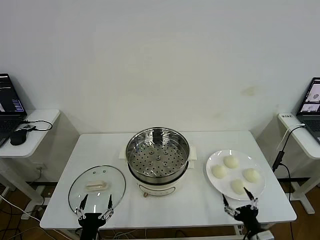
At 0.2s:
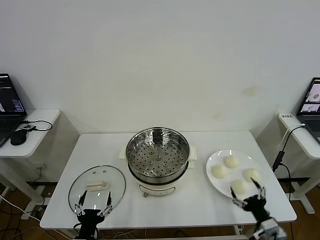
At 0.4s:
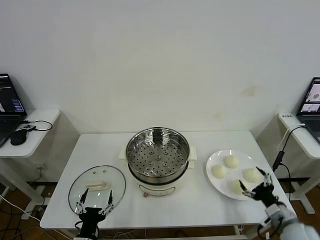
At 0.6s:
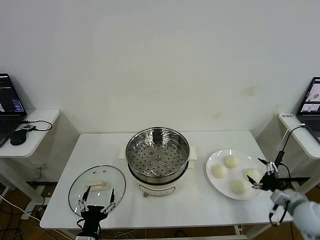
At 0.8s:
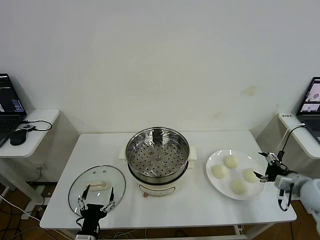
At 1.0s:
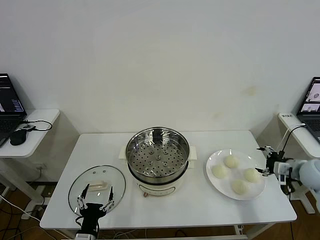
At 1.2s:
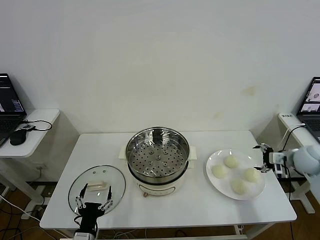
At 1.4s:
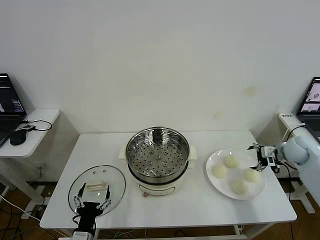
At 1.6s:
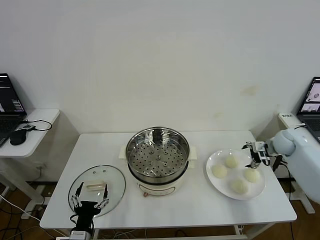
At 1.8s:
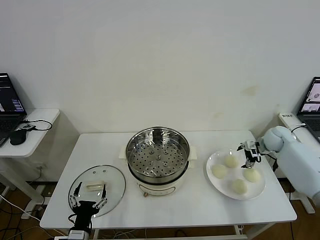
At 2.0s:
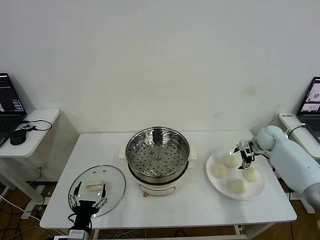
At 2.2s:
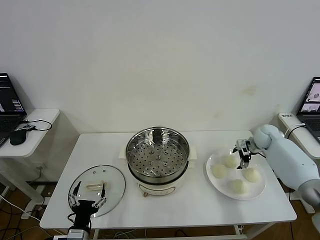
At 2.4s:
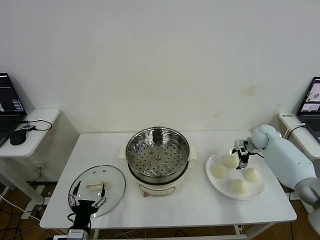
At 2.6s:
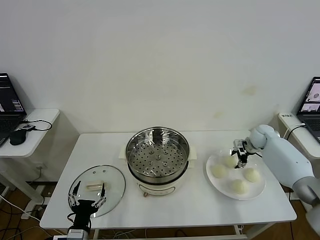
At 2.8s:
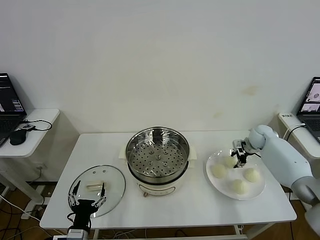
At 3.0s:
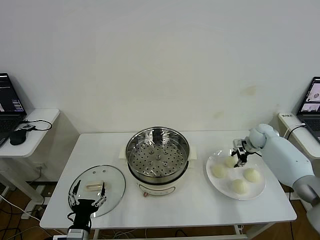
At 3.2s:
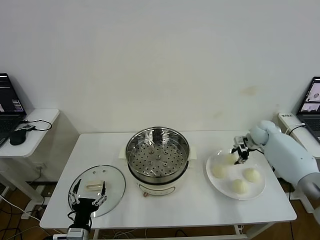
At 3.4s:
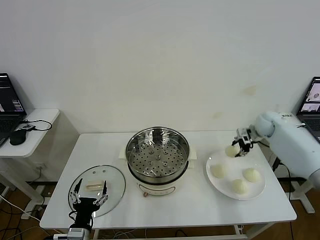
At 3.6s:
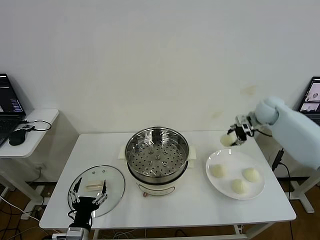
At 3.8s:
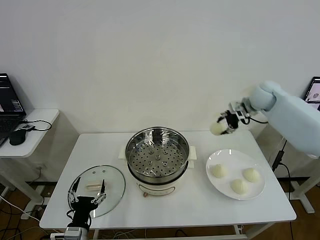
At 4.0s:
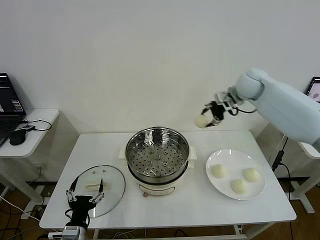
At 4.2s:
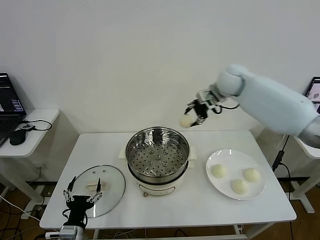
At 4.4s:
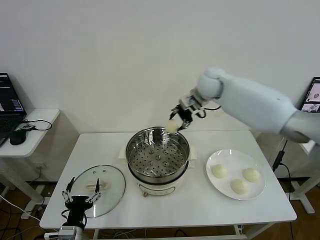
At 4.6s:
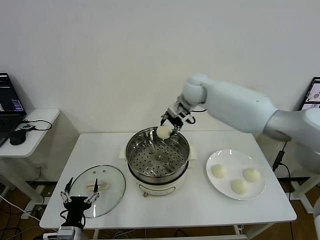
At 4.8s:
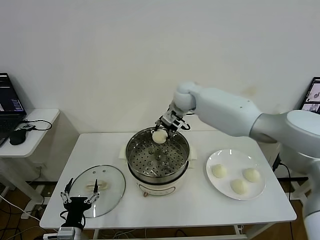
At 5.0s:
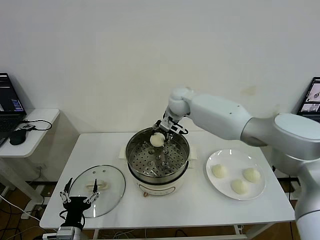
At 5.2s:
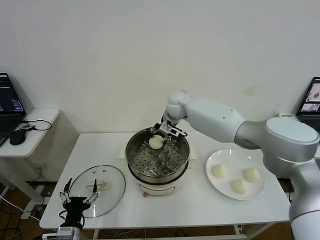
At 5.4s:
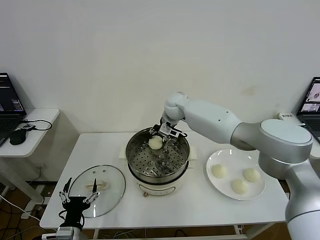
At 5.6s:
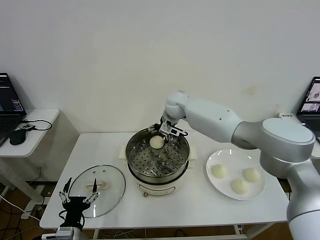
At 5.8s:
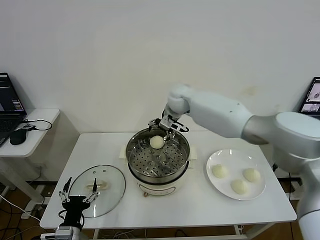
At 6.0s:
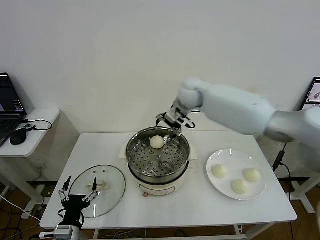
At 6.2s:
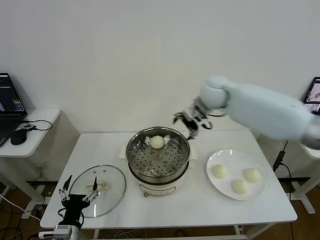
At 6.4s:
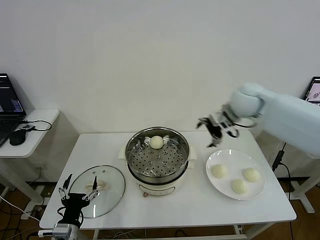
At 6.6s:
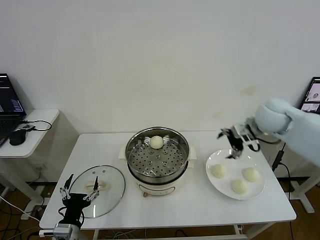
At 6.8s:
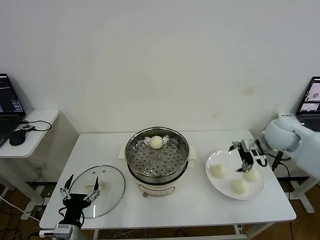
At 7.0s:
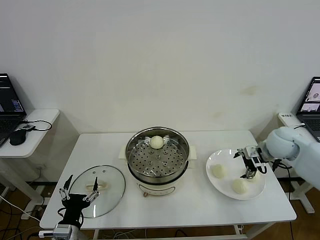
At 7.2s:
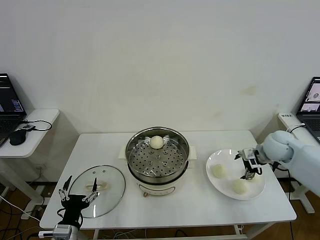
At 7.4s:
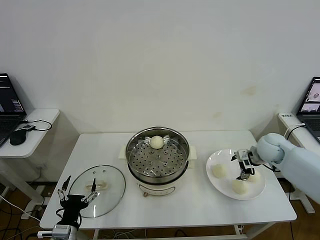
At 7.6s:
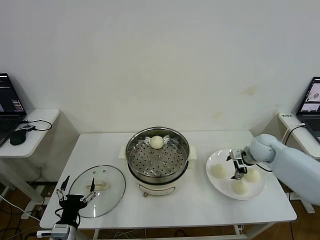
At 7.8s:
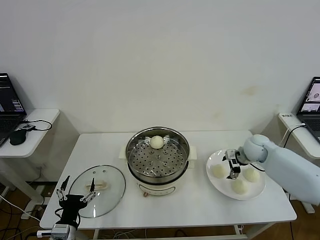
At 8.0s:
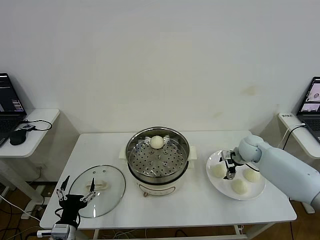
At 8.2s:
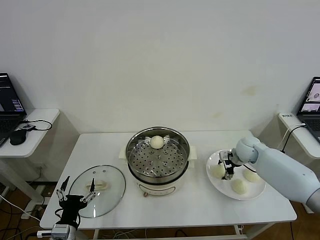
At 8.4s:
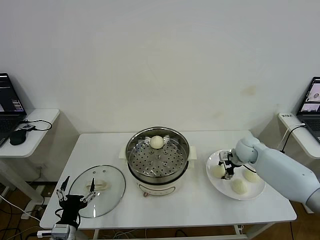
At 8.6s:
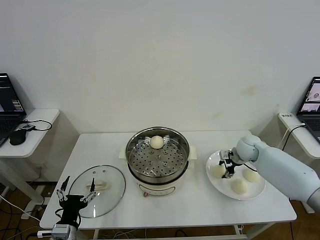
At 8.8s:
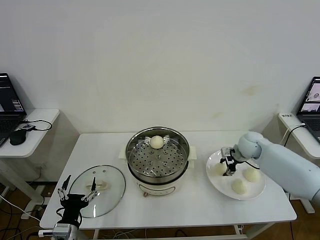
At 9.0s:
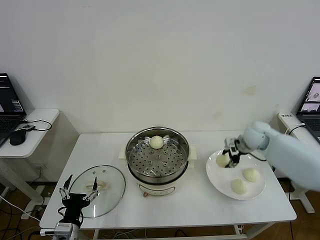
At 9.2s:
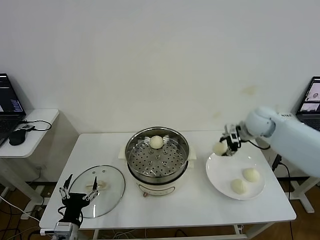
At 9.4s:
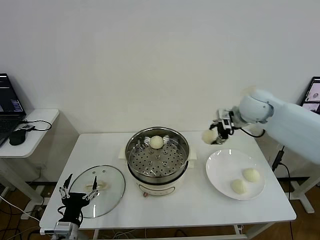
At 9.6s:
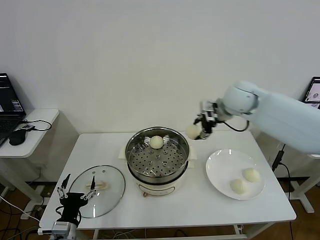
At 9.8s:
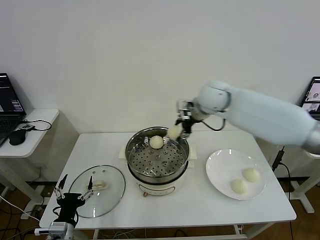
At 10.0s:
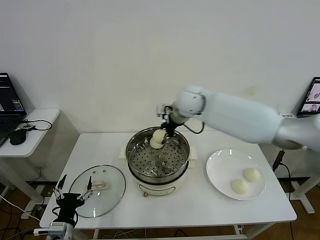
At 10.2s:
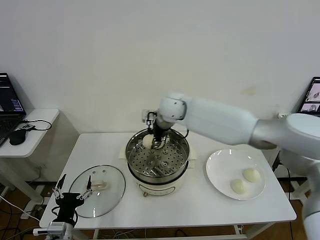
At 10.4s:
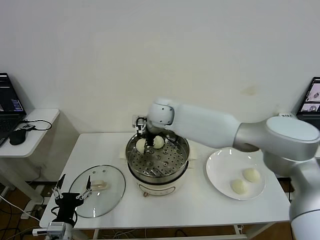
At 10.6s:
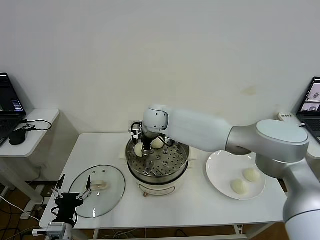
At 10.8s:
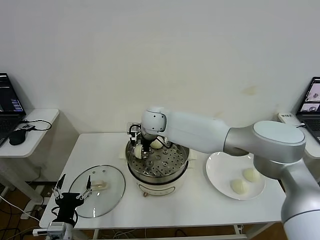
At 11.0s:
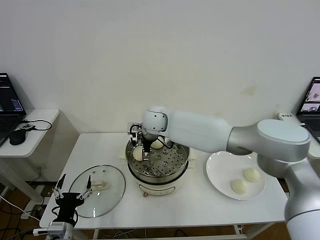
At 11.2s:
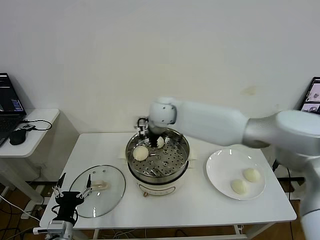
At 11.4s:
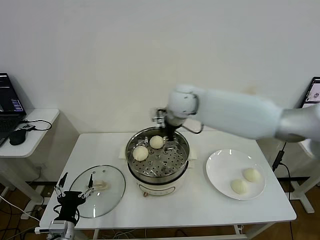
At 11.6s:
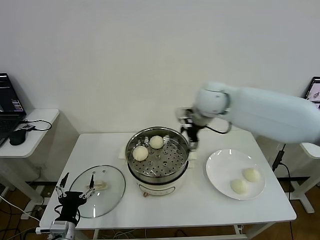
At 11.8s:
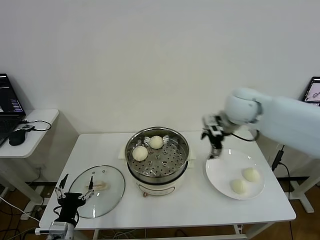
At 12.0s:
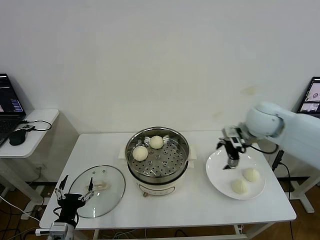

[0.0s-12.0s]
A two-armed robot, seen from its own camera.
Step, 0.0s to 2.8s: Grasp the baozi in the plate with right gripper.
Step, 3.0s to 5.4s: Place the baozi on the steamer with right gripper.
Step, 5.8s to 8.4s: Grasp the baozi in the plate with right gripper.
Step, 8.6s to 11.0s: Place the baozi on the steamer with right gripper.
1.6s to 3.0s: The right gripper goes approximately 5 cm forward, and closes its fingers.
3.0s to 4.4s: The right gripper heads to the left and upward, covering approximately 35 cm.
4.4s to 6.0s: The right gripper goes downward and returns, approximately 10 cm each way, and opens up.
6.0s to 7.6s: The right gripper heads to the right and downward, covering about 30 cm.
7.6s to 9.0s: The right gripper travels upward by roughly 5 cm, and closes.
9.0s to 10.4s: The right gripper is displaced to the left by approximately 35 cm.
10.4s to 12.0s: The right gripper heads to the right, covering approximately 30 cm, and opens its fingers.

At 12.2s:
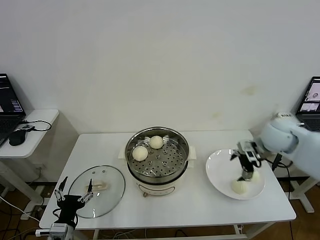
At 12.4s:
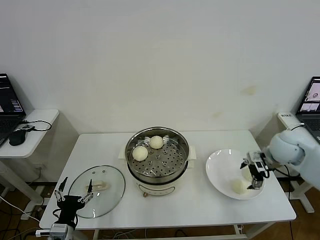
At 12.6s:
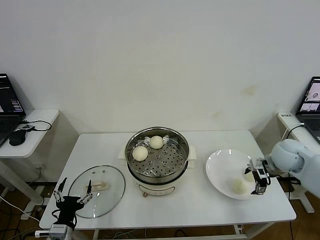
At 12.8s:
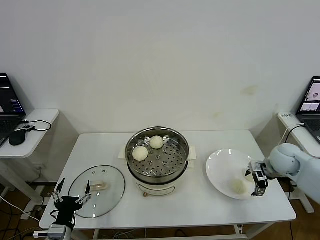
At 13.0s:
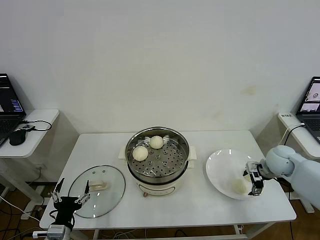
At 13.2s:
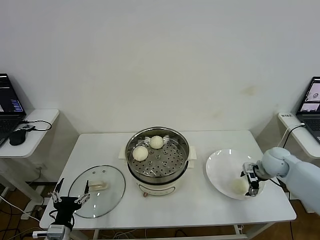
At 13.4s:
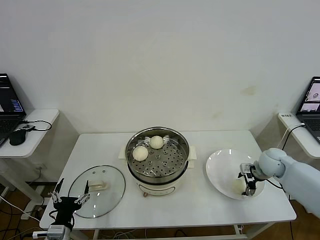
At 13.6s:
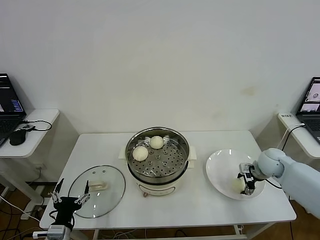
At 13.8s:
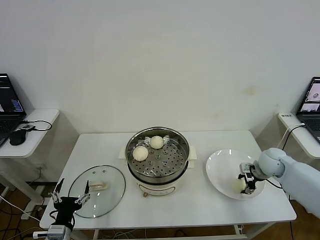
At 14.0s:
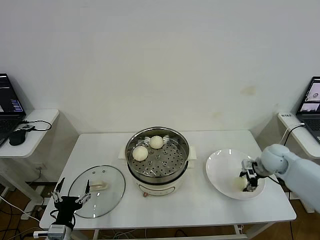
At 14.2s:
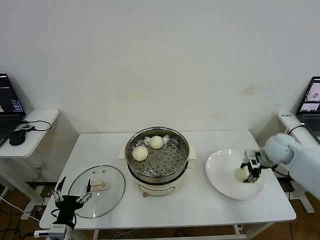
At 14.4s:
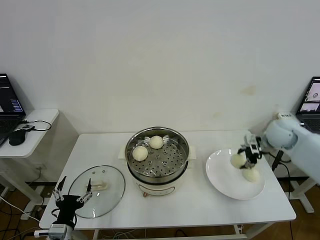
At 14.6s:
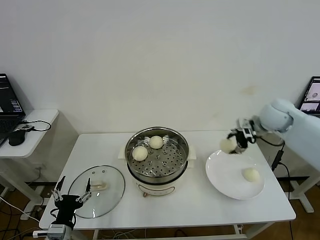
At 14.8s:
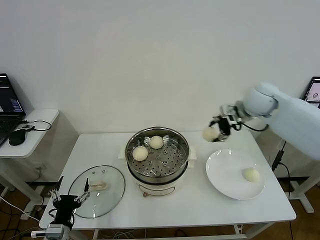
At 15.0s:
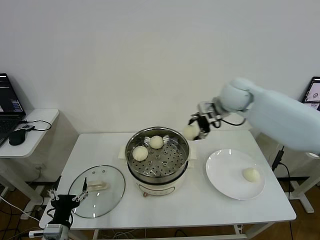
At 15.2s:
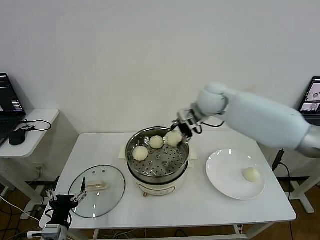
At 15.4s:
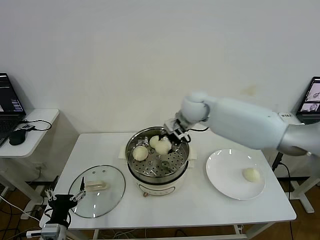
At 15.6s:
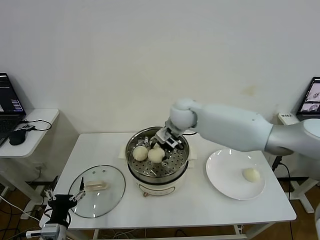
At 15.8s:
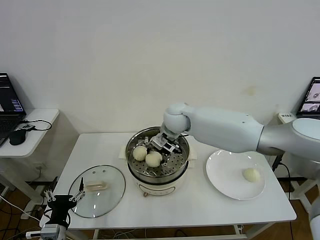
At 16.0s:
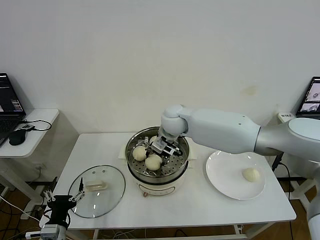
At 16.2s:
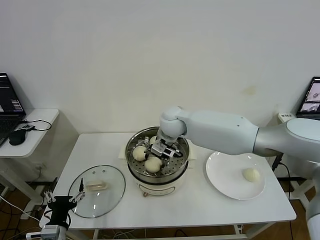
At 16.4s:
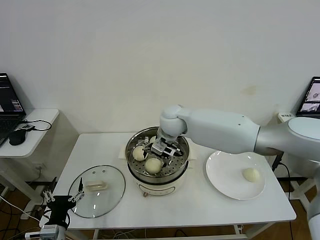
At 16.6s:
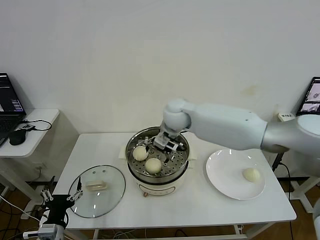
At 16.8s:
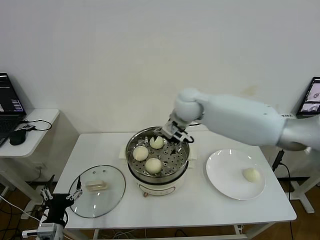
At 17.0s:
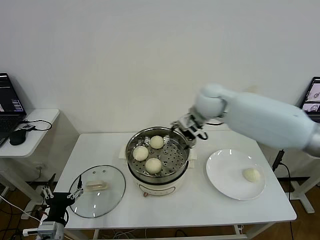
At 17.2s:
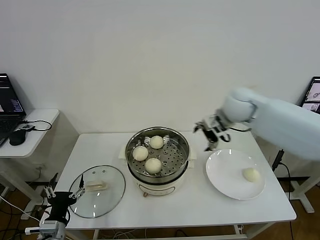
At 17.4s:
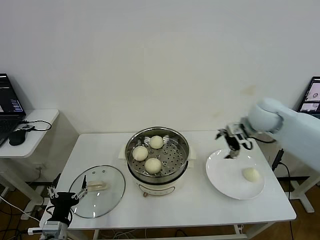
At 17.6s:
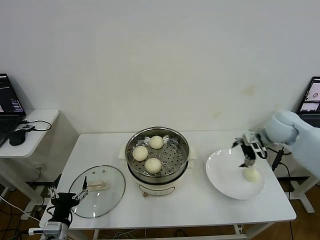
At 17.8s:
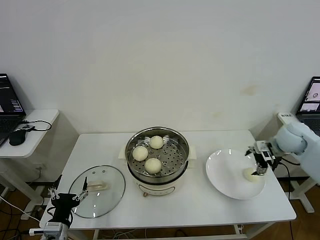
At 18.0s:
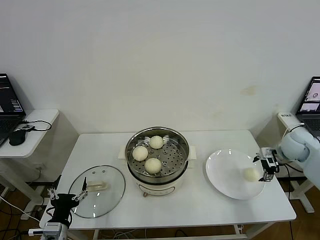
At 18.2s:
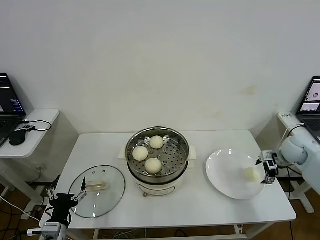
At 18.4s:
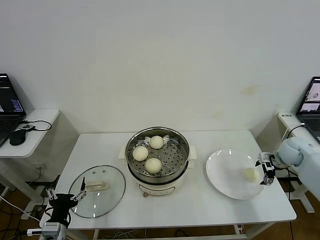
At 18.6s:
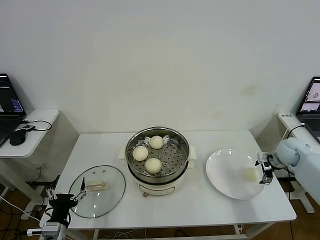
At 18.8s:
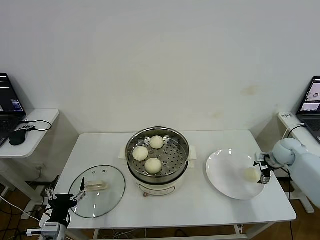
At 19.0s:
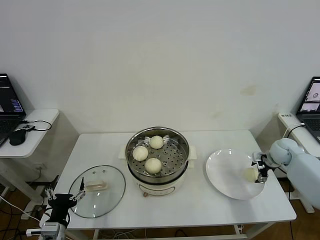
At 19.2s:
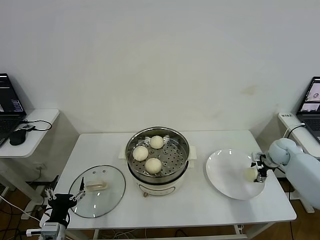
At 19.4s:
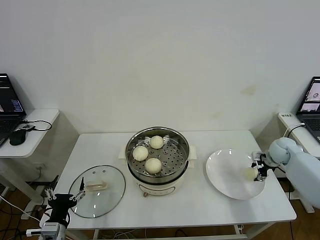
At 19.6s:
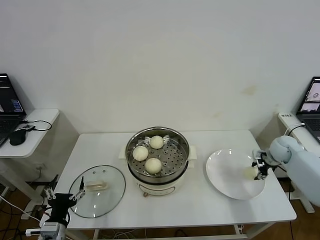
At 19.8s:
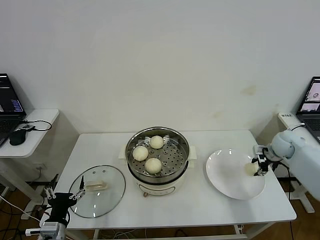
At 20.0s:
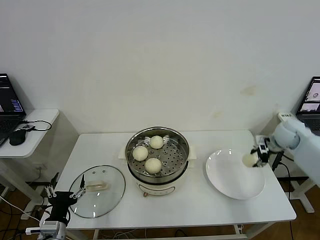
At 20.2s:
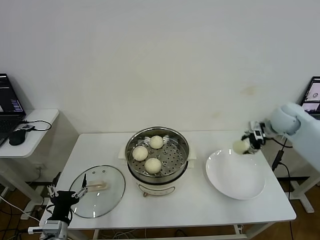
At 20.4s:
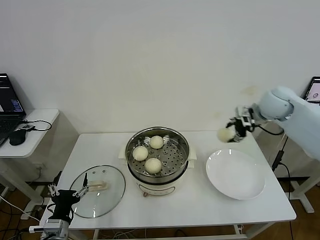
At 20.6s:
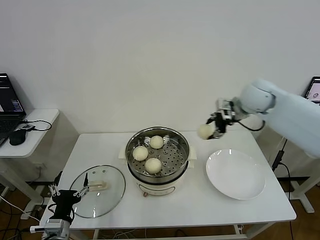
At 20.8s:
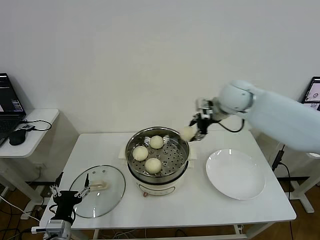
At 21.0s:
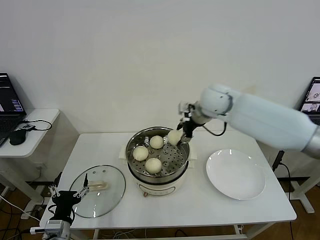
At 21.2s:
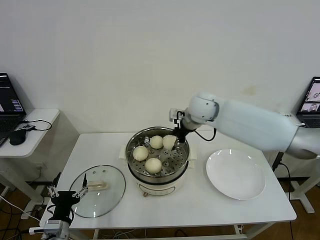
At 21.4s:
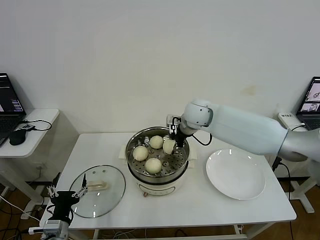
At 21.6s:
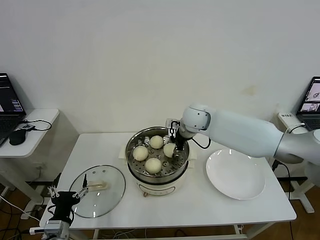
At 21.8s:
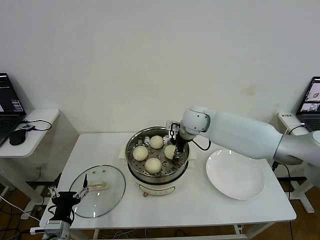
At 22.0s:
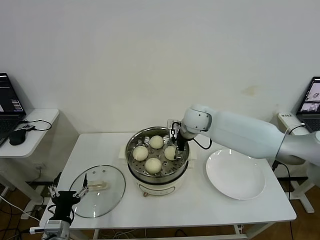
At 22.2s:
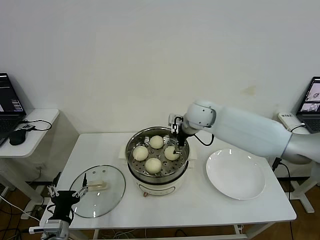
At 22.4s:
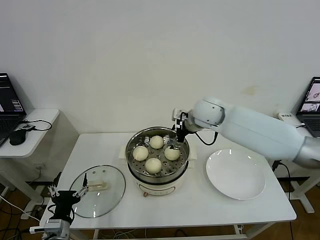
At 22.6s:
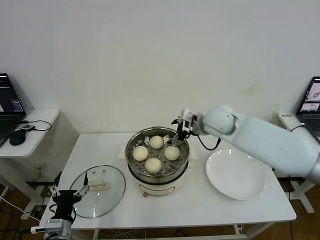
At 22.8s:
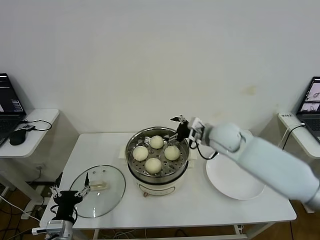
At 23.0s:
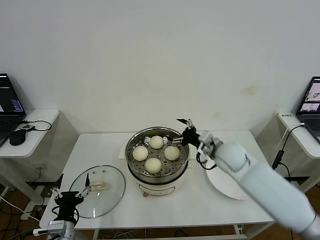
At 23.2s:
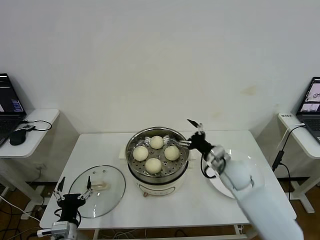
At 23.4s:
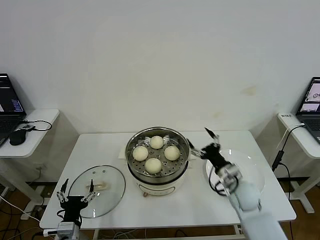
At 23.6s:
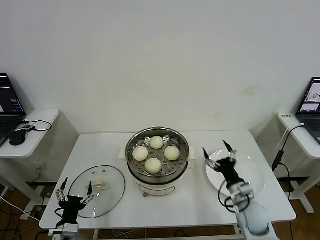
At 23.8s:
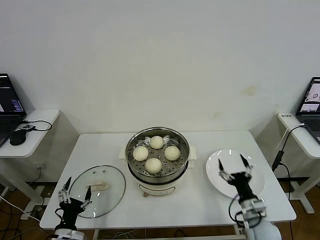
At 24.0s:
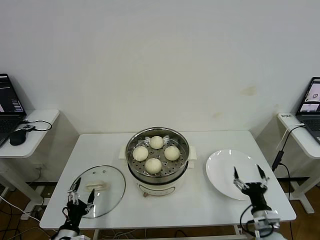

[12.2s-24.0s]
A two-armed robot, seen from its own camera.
Step, 12.2s to 13.8s: Grasp the baozi in the plate with right gripper.
Step, 14.0s to 16.2s: Place the baozi on the steamer with right gripper.
Step, 16.6s to 19.4s: Grasp the baozi in the plate with right gripper.
Step, 19.6s to 22.0s: Place the baozi on the steamer with right gripper.
12.2s to 13.6s: The right gripper heads downward, covering roughly 15 cm, and closes up.
13.6s to 15.2s: The right gripper heads to the left and upward, covering some 35 cm.
15.2s to 16.6s: The right gripper heads to the left, covering approximately 10 cm, and opens its fingers.
16.6s to 18.2s: The right gripper shifts roughly 40 cm to the right.
18.2s to 19.6s: The right gripper shifts by approximately 5 cm, and closes up.
19.6s to 21.0s: The right gripper travels to the left and upward by roughly 35 cm.
21.0s to 22.6s: The right gripper changes place by some 5 cm, and opens its fingers.
22.6s to 24.0s: The left gripper heads downward, covering roughly 5 cm. The right gripper is displaced backward, downward and to the right by approximately 40 cm.
